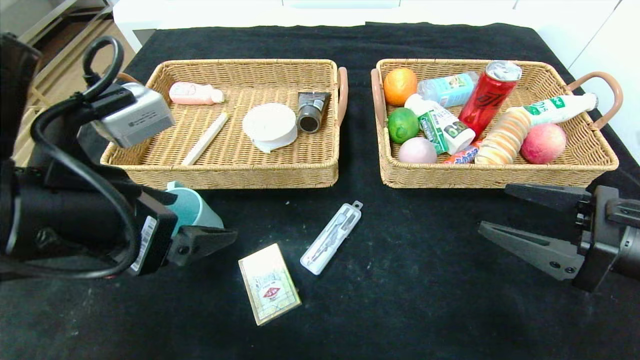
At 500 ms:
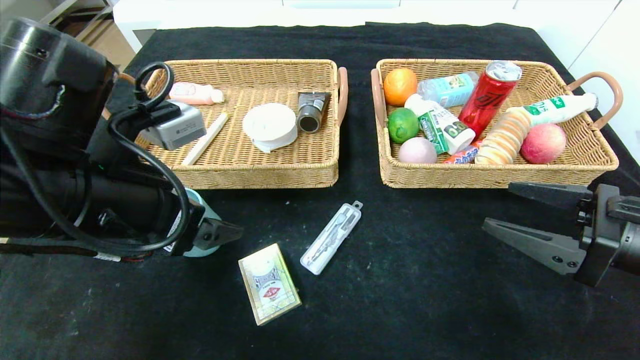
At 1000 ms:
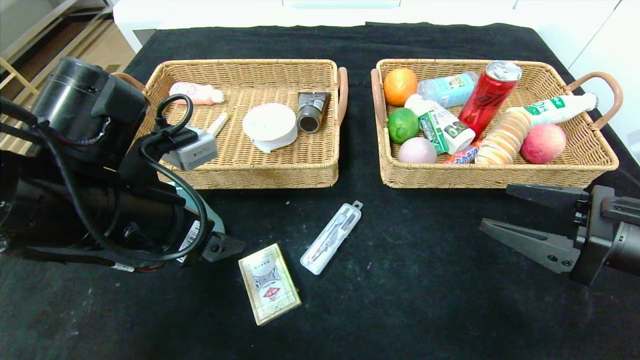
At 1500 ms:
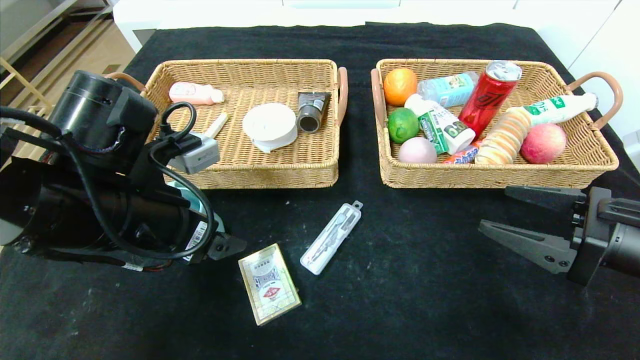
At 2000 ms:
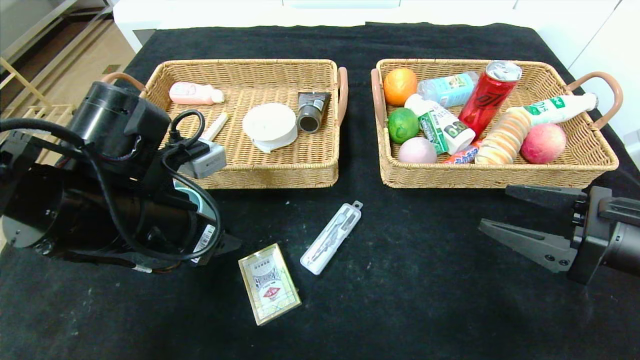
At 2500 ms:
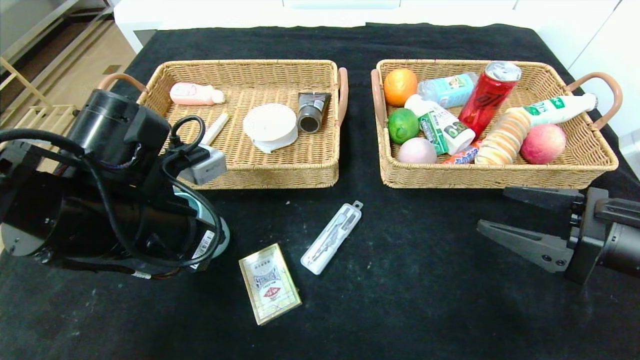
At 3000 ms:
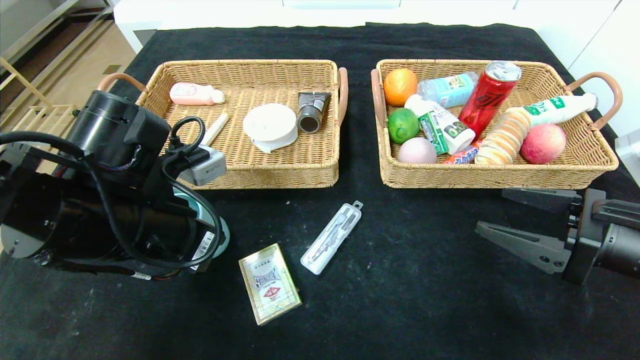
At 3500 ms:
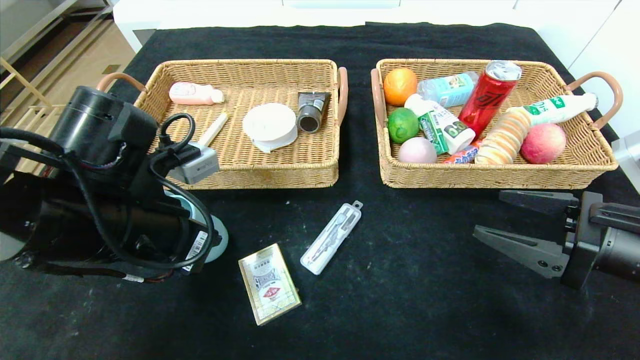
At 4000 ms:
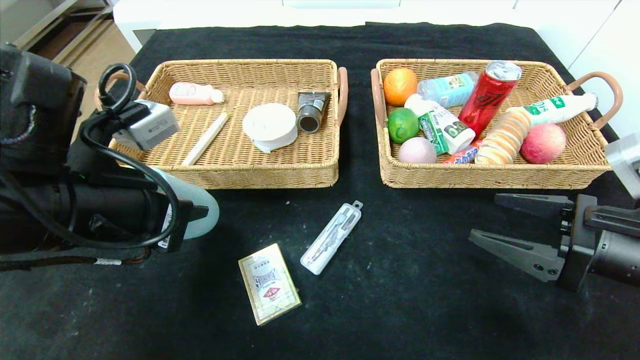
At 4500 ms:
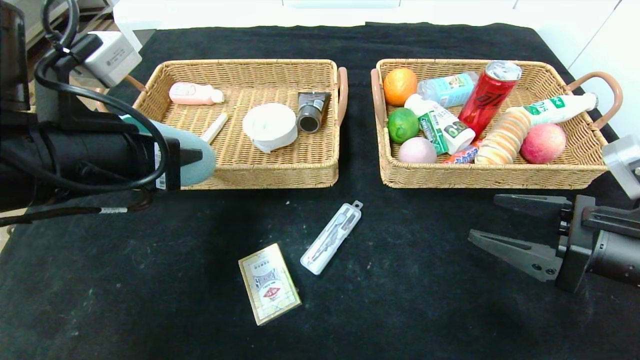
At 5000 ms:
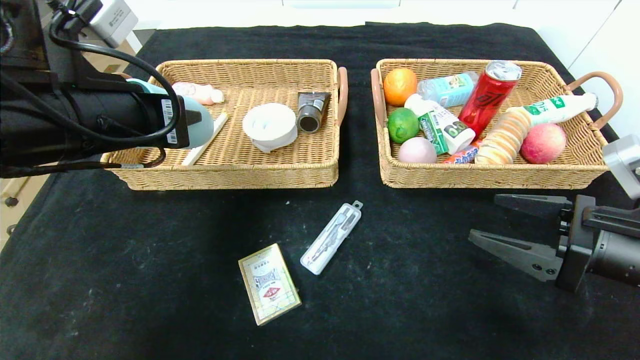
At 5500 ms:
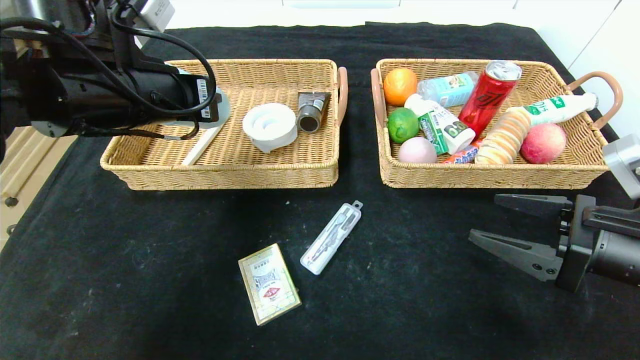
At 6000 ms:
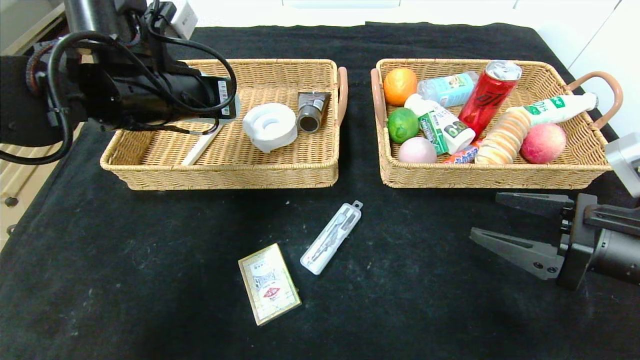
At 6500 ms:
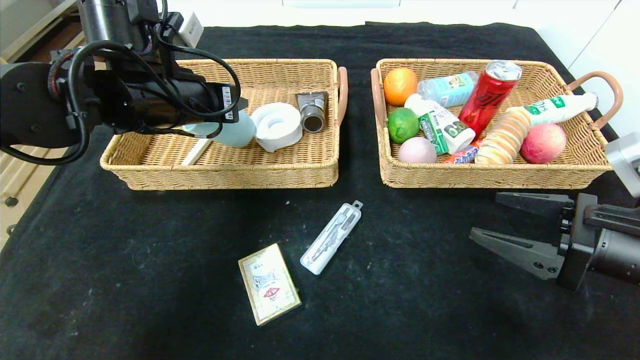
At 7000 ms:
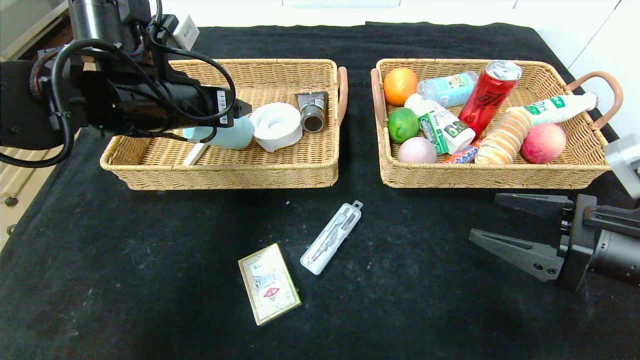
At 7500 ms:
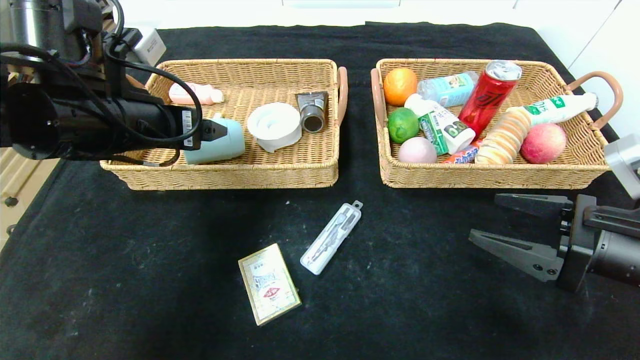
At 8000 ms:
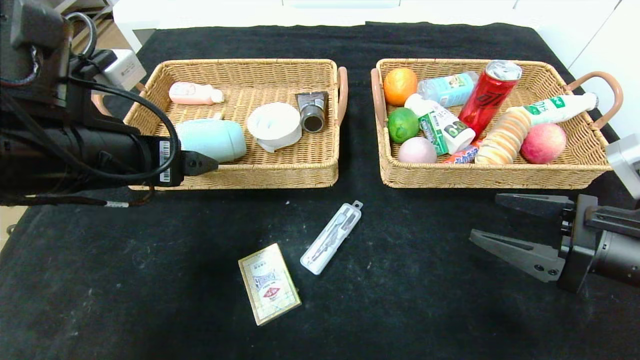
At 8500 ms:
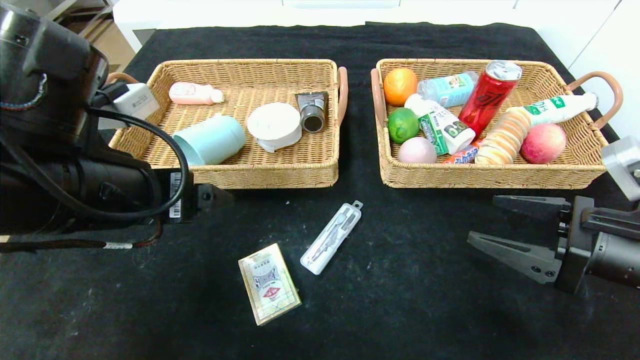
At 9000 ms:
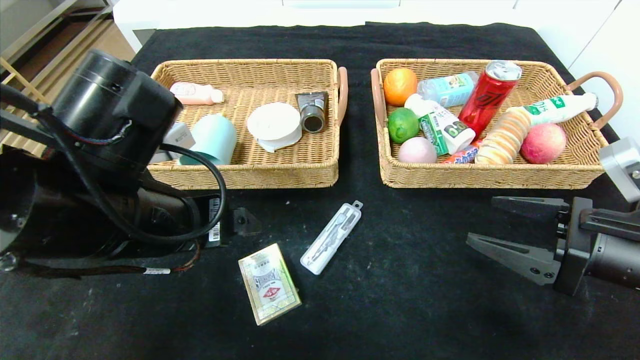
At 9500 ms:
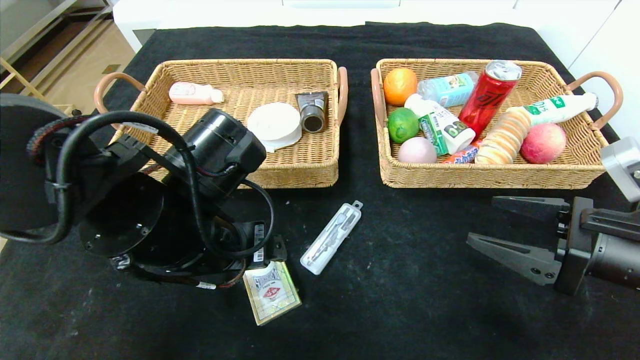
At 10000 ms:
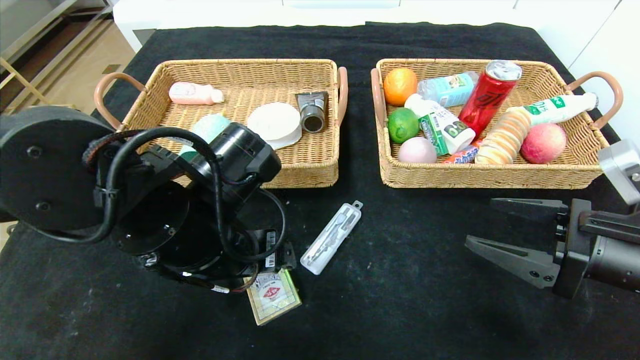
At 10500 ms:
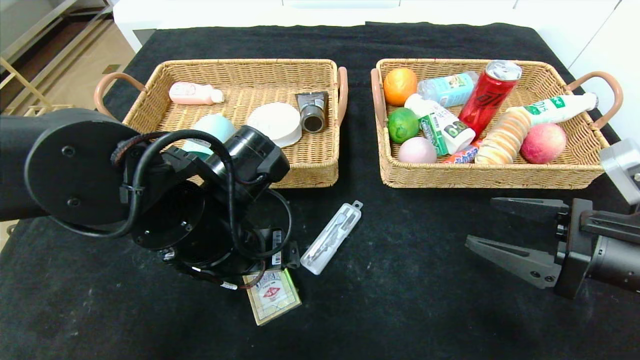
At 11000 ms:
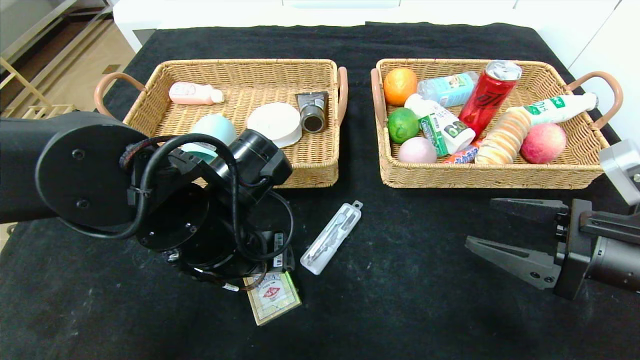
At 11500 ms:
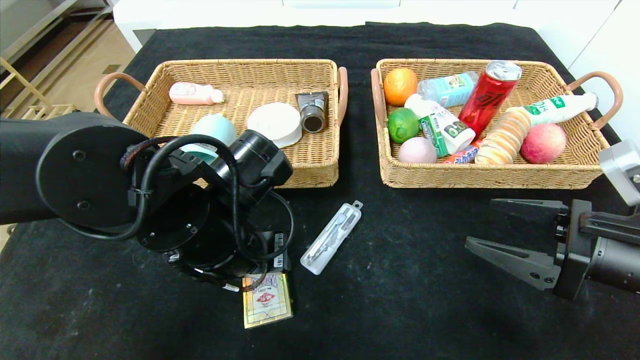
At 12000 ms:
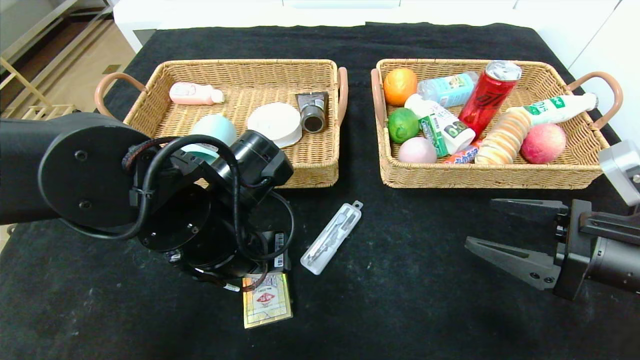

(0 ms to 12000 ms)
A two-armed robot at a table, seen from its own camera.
Step, 0 ms - 8500 ms: Grasp the blue cup and put it in the left basket.
0 ms - 2000 ms: The left gripper is displaced forward by approximately 5 cm, and closes its fingers.
2000 ms - 4000 ms: The left gripper closes its fingers.
4000 ms - 6000 ms: The left gripper heads forward and upward, covering some 15 cm.
6000 ms - 8000 ms: The left gripper moves backward, approximately 10 cm, and opens up.
8000 ms - 10000 ms: The left gripper heads to the right and downward, covering approximately 10 cm.
10000 ms - 12000 ms: The left gripper closes up.

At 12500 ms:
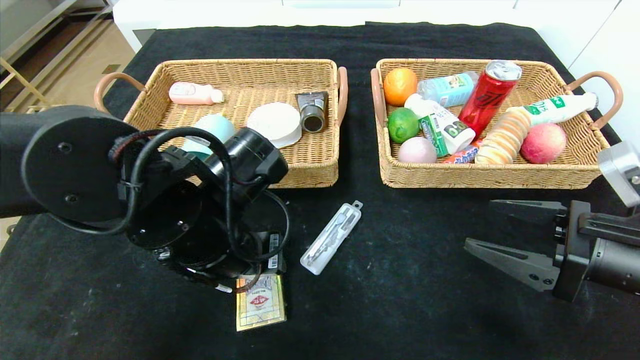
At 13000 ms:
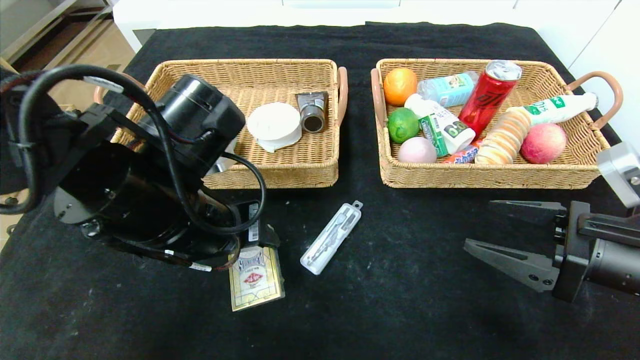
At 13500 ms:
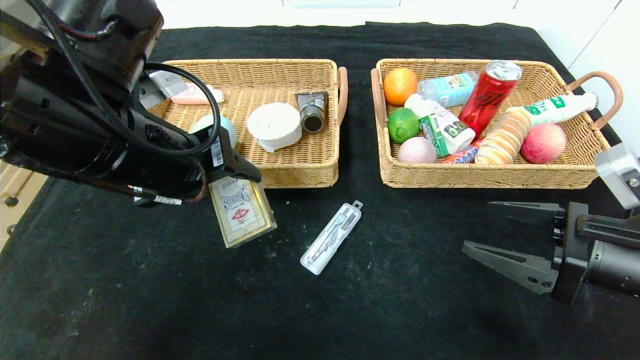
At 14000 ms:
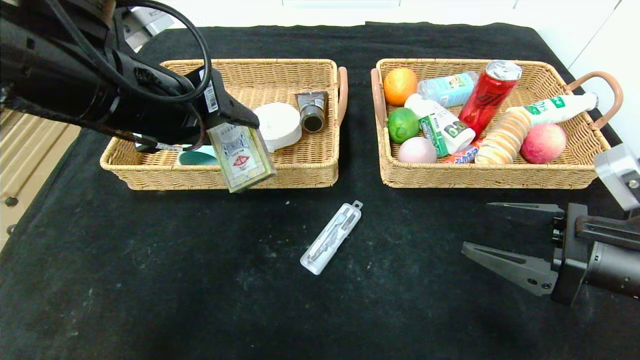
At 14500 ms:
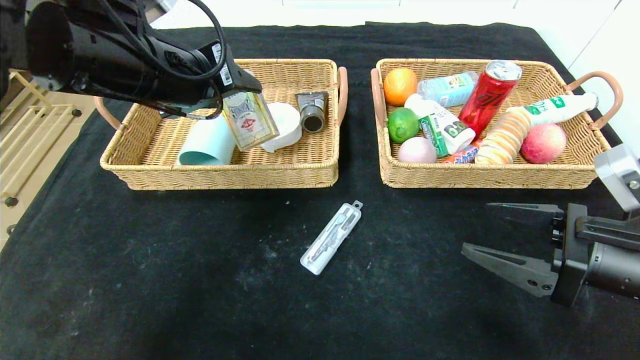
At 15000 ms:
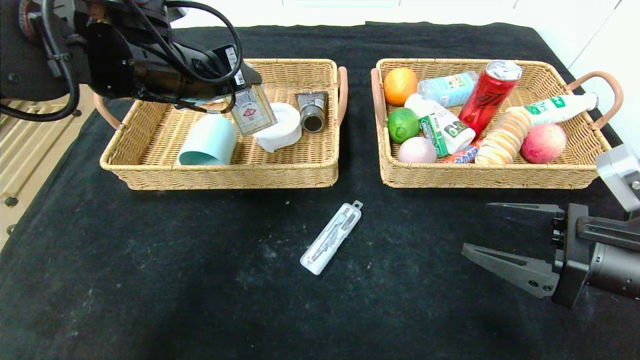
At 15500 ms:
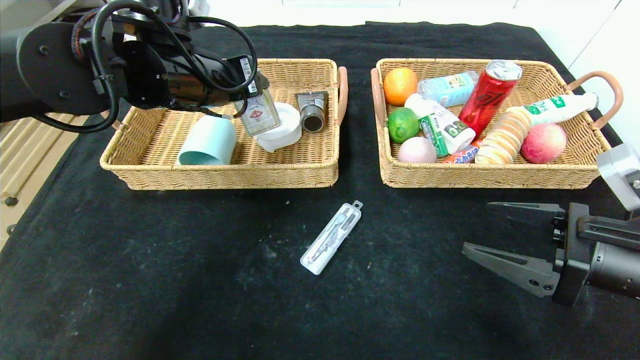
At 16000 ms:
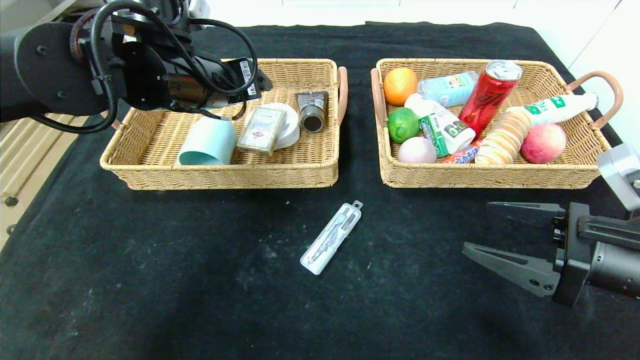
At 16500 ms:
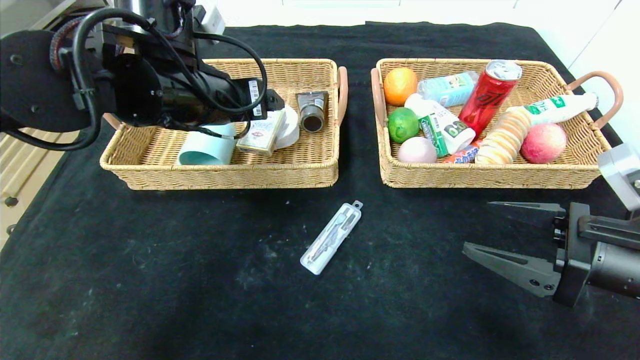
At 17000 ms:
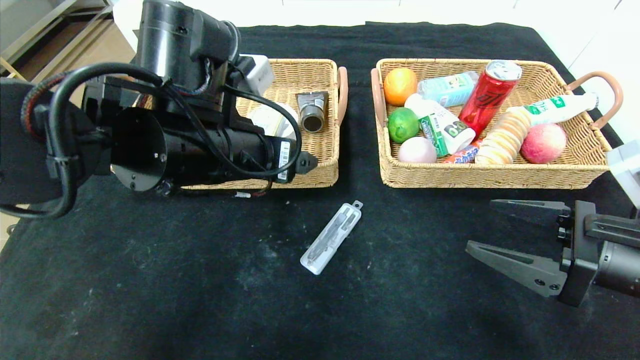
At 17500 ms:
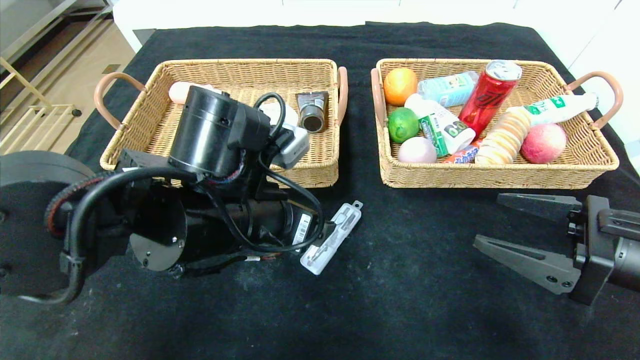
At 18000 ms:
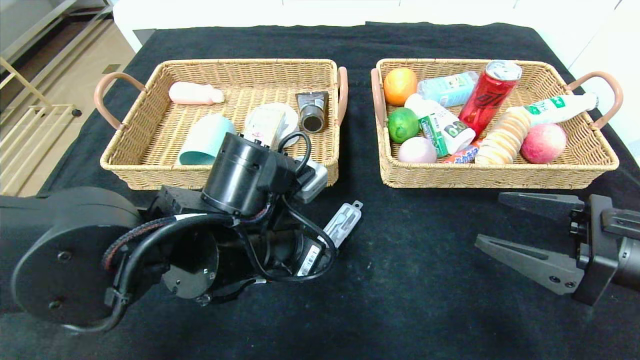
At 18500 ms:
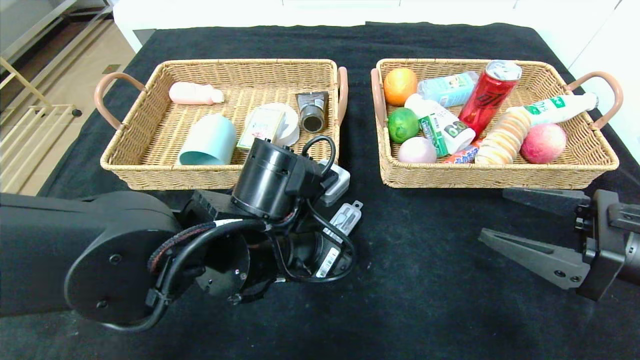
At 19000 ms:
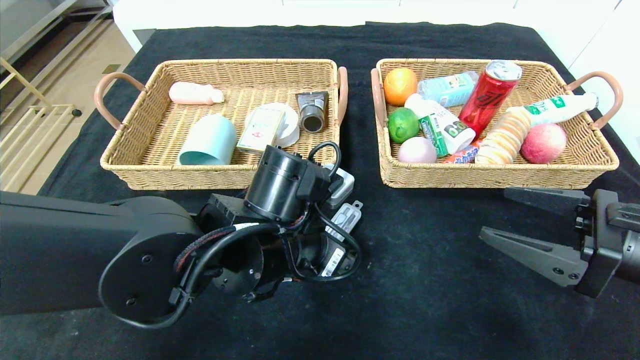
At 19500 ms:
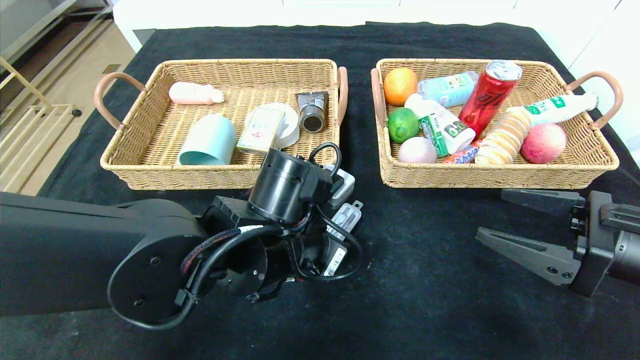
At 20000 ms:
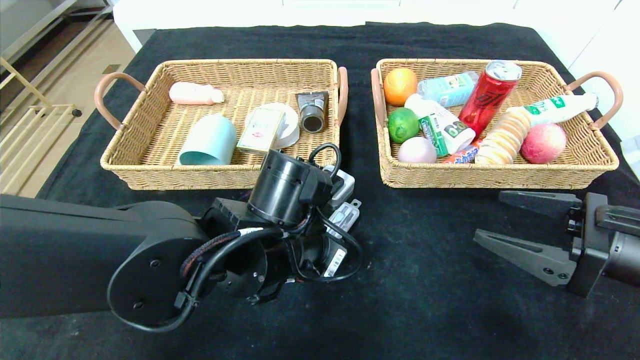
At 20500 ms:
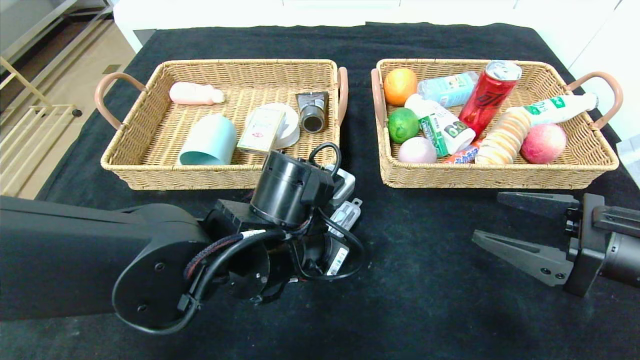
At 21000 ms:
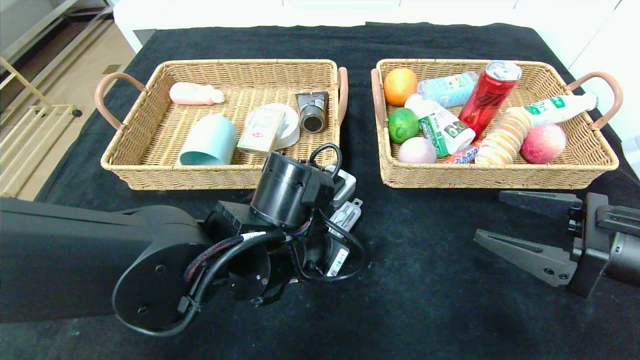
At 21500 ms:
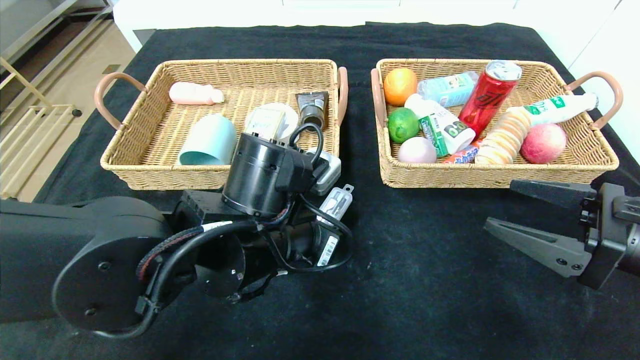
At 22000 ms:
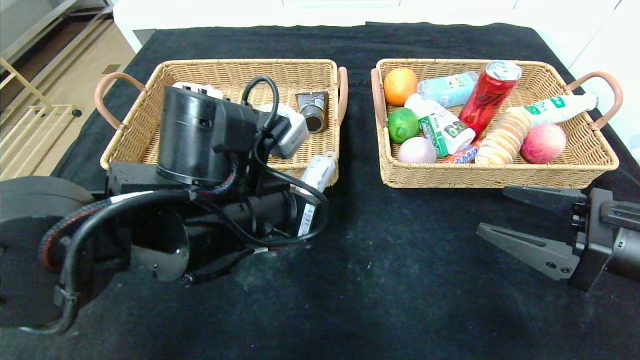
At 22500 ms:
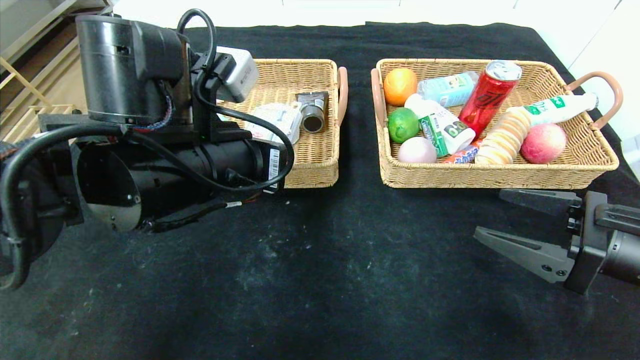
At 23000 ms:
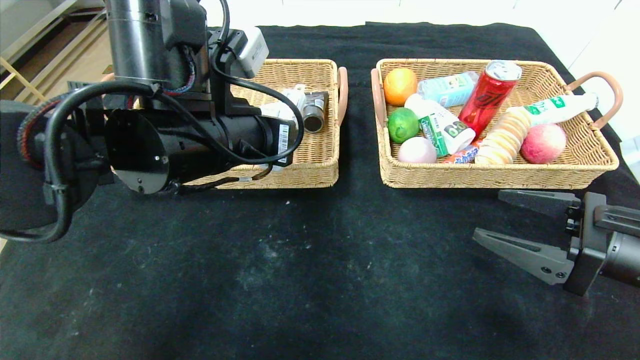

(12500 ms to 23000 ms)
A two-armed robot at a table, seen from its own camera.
Step, 12500 ms - 16000 ms: Grasp the playing cards and put it in the left basket.
12500 ms - 14500 ms: The left gripper heads upward, covering some 15 cm.
14500 ms - 16500 ms: The left gripper opens up.
16500 ms - 19000 ms: The left gripper moves downward, to the right and backward, some 20 cm.
19000 ms - 21000 ms: The left gripper closes its fingers.
21000 ms - 23000 ms: The left gripper heads upward and to the left, covering some 15 cm.
